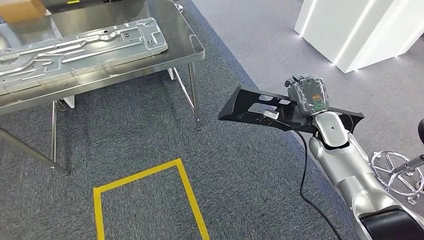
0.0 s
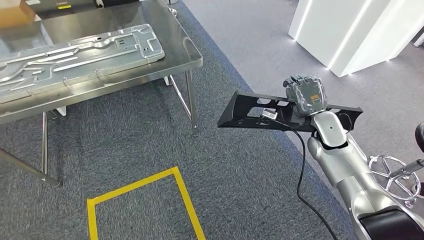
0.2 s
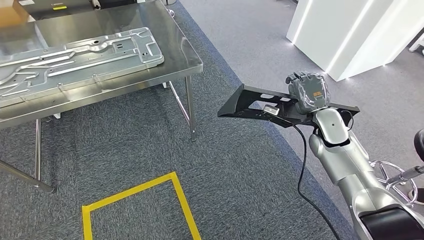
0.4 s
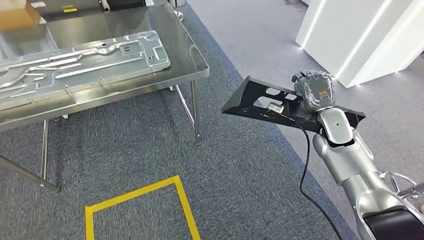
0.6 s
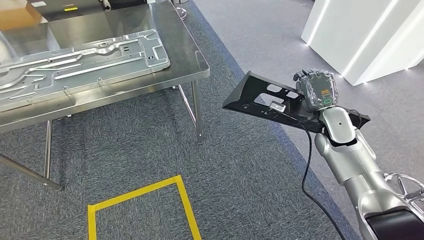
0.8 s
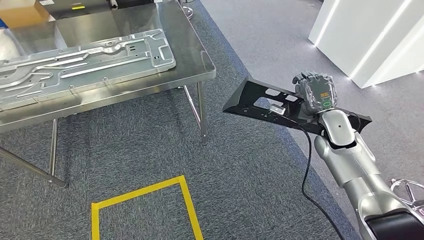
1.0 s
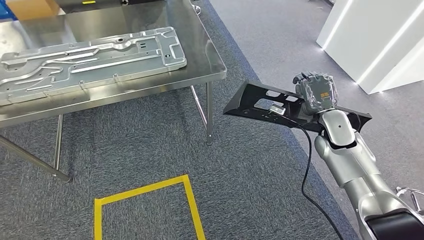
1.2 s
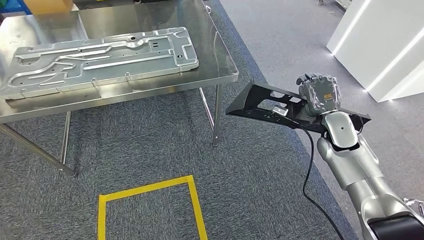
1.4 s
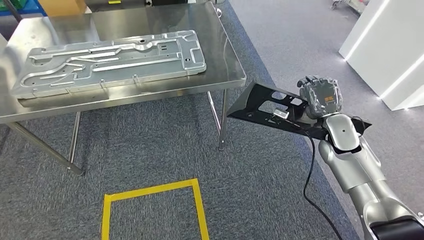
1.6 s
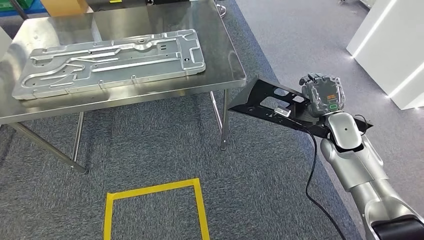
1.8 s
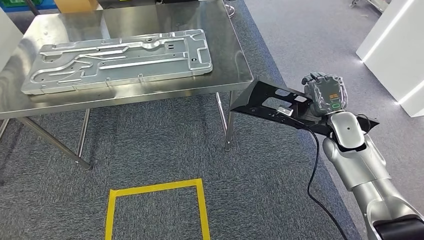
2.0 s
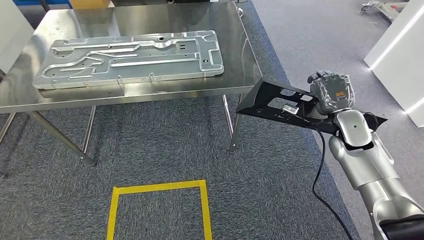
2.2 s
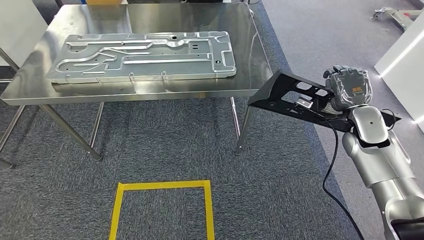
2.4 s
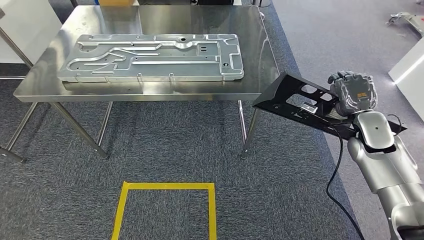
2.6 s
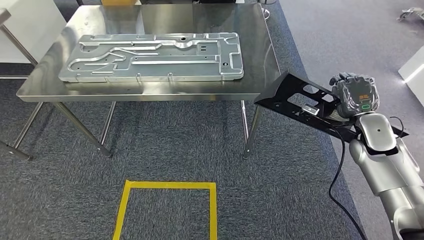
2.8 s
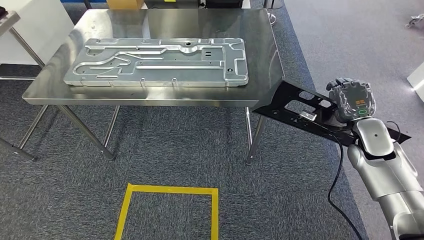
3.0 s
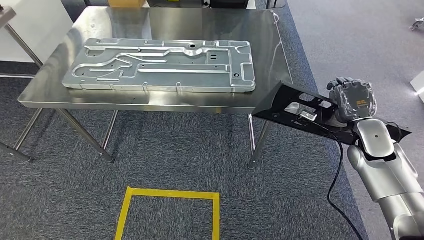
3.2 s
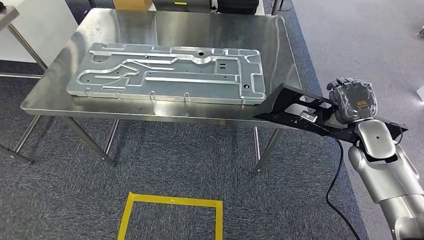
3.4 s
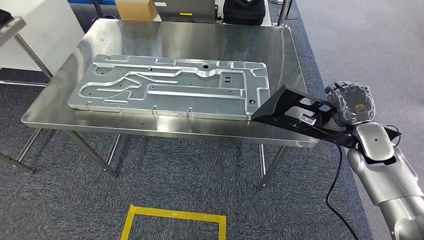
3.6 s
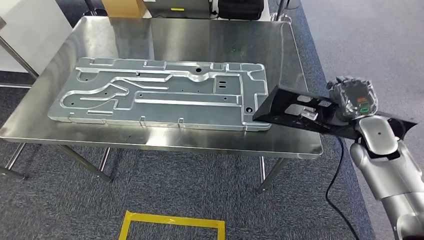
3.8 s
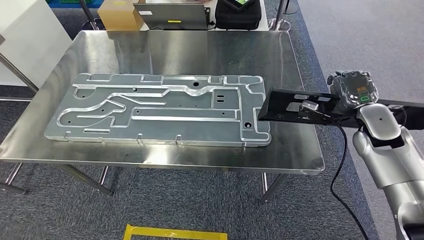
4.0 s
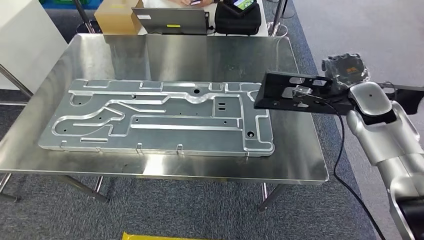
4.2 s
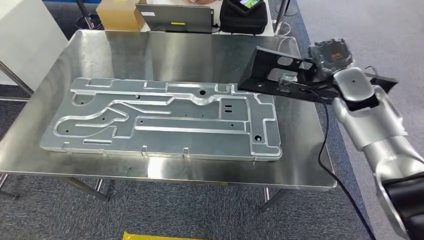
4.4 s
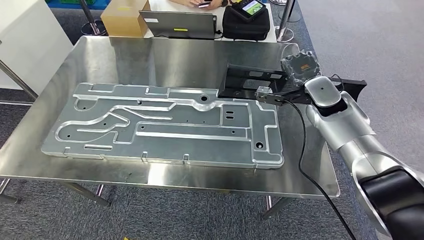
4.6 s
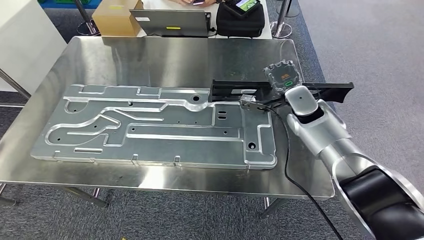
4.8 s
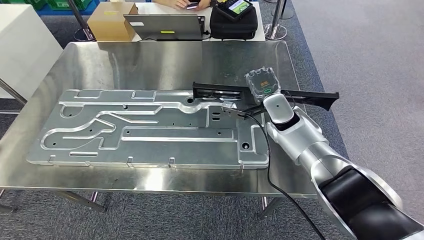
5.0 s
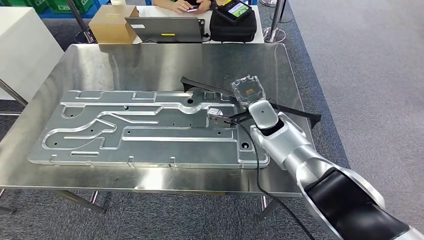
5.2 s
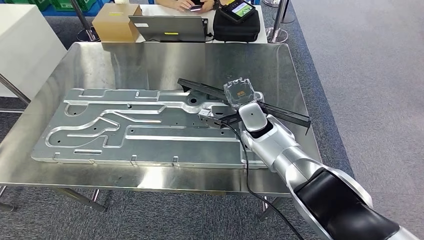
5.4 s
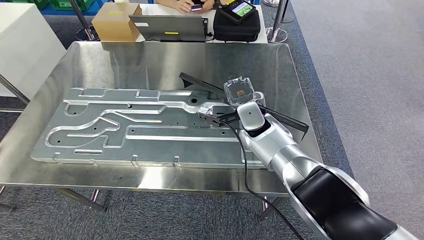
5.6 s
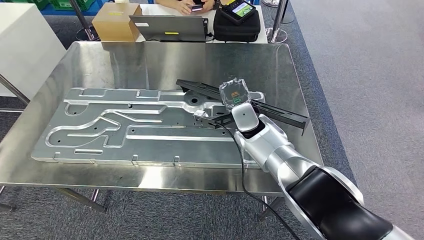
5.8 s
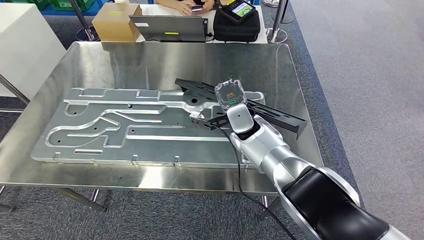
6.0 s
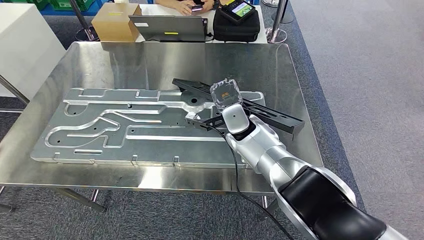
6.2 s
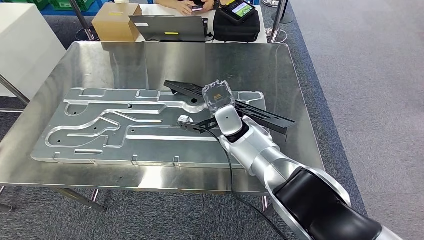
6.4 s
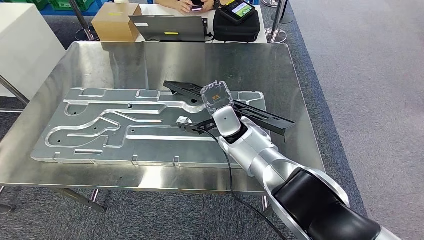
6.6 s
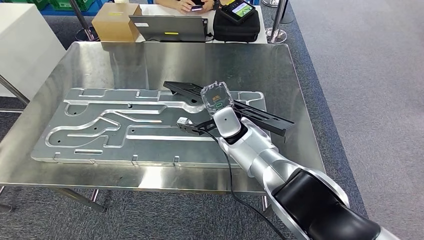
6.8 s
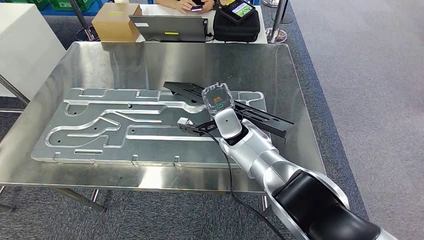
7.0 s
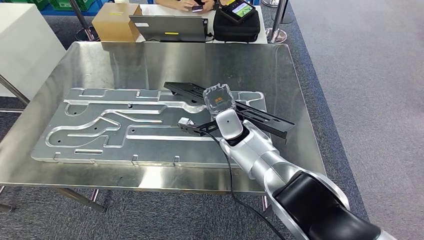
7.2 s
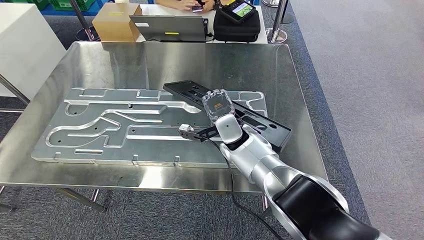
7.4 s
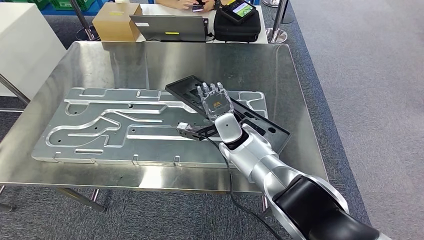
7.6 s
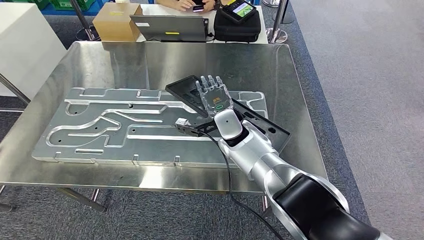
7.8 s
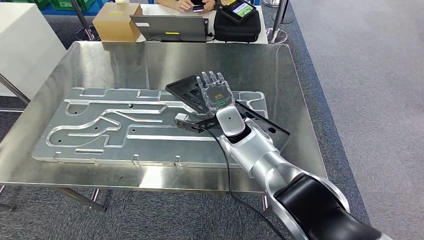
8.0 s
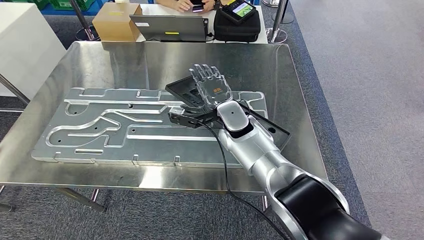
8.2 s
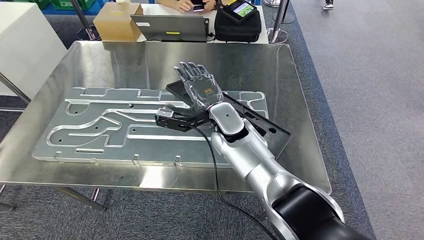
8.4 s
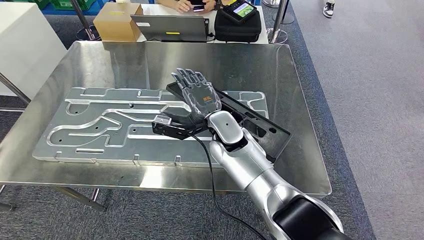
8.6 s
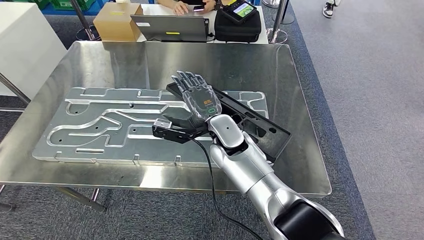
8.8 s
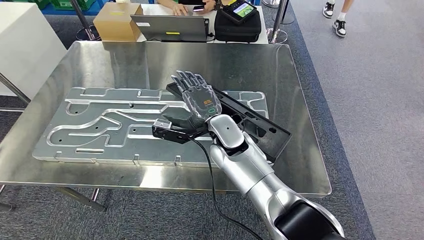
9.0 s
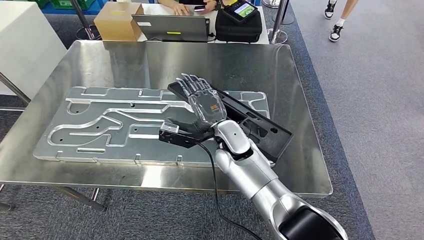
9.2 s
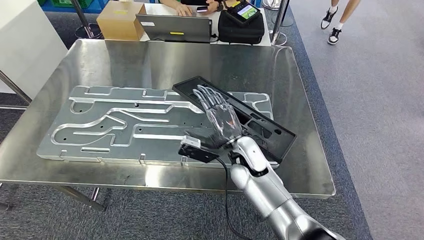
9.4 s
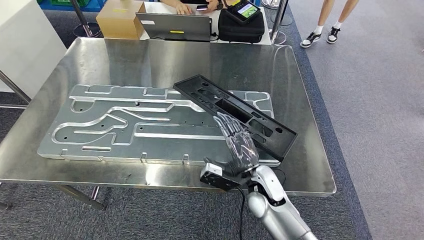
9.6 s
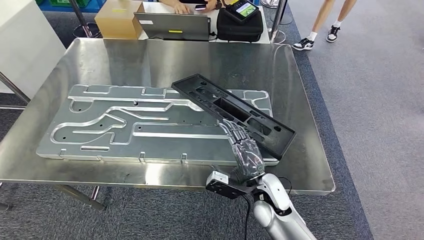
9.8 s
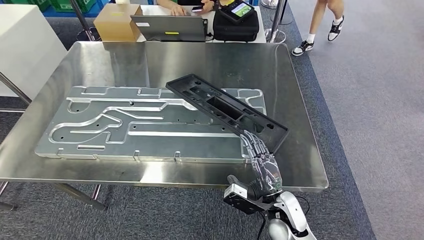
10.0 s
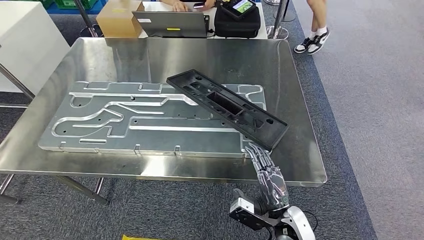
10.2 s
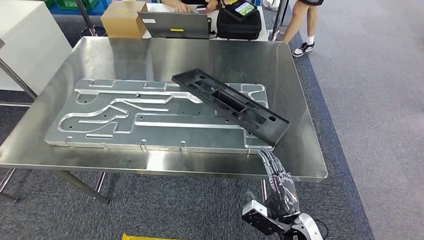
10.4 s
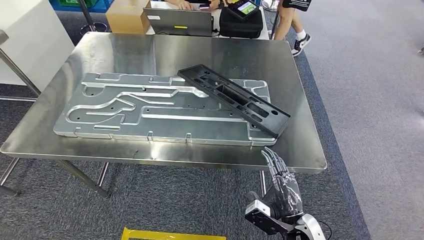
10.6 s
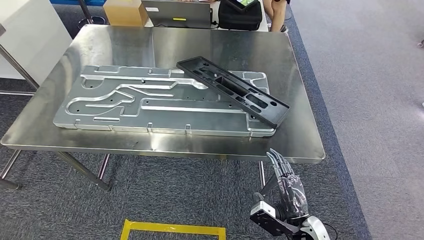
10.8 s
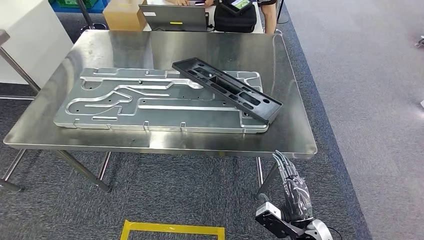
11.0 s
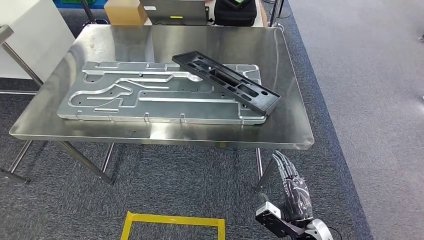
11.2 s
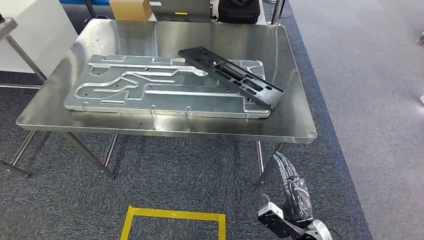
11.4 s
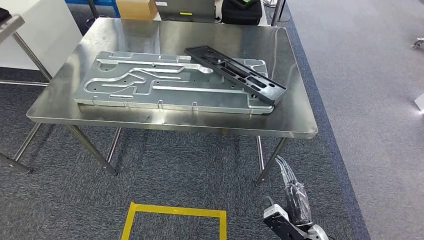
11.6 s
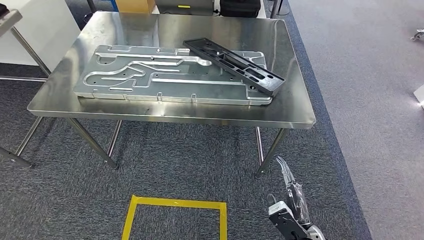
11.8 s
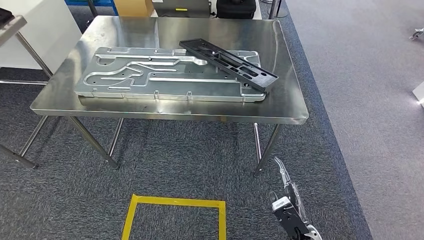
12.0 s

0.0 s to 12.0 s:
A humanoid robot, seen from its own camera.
Step, 0.0 to 2.0 s: Move the large material to the workbench.
Step, 3.2 to 10.8 s: Insert the large material into the corresponding slot on the workbench.
6.0 to 7.6 s: The hands make only small movements.
7.6 to 9.0 s: The right hand ends up roughly 5 cm from where it was.

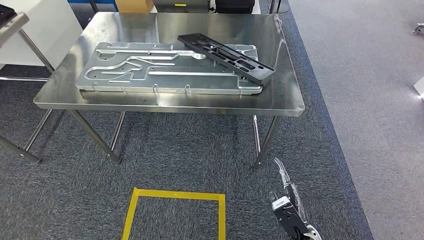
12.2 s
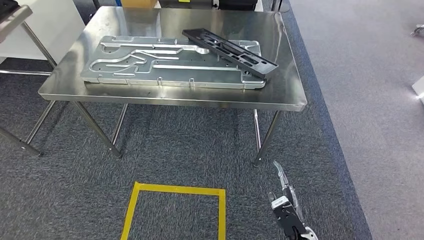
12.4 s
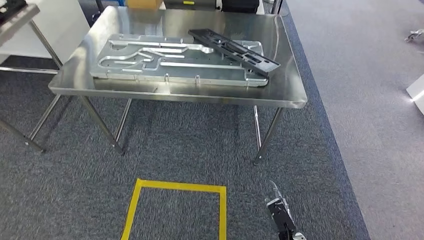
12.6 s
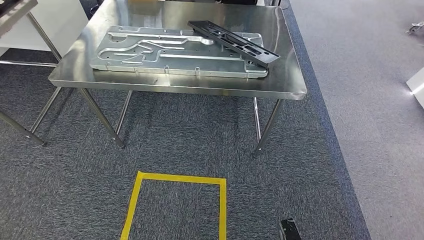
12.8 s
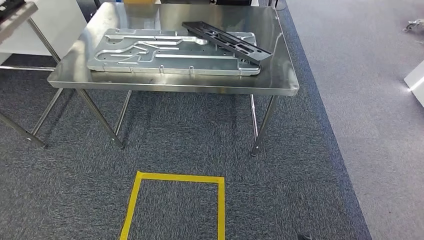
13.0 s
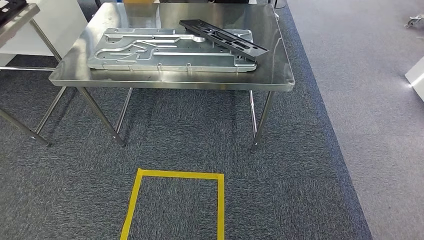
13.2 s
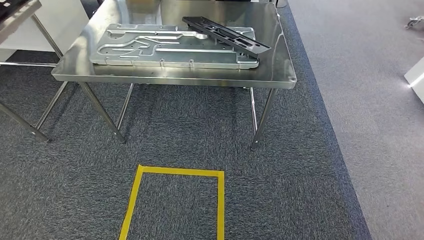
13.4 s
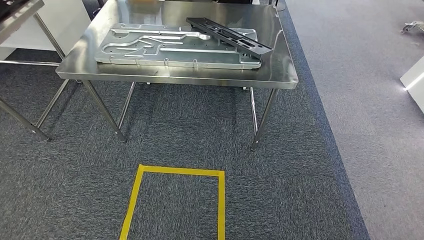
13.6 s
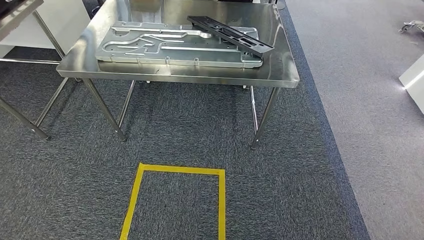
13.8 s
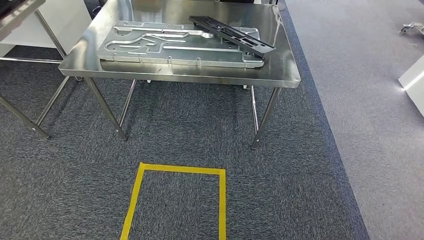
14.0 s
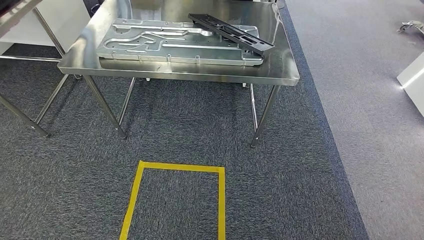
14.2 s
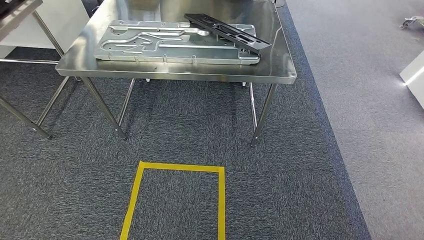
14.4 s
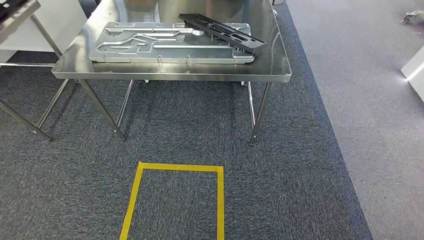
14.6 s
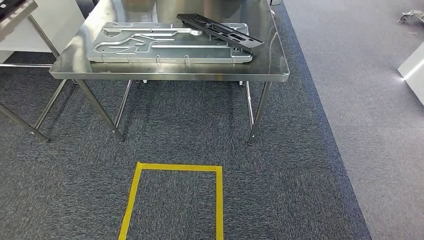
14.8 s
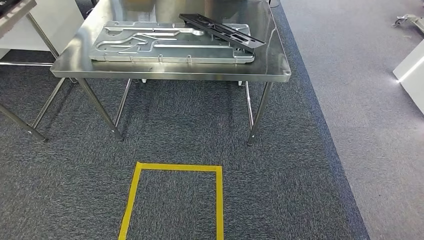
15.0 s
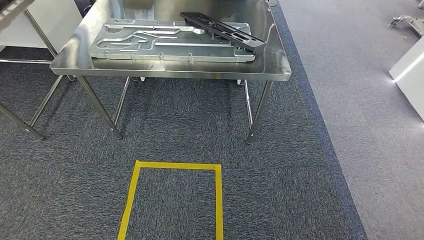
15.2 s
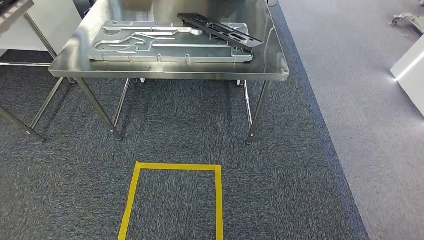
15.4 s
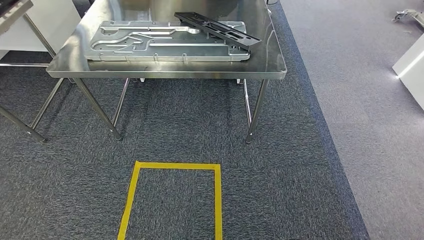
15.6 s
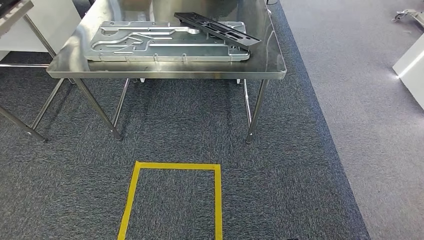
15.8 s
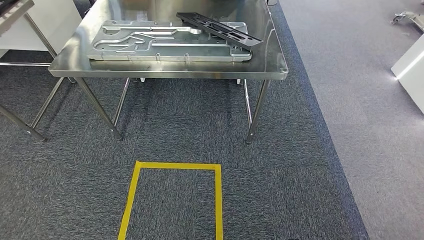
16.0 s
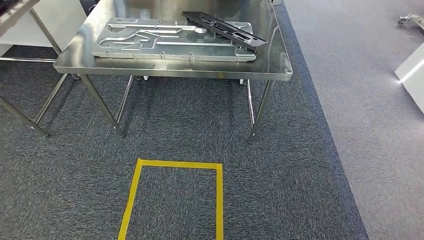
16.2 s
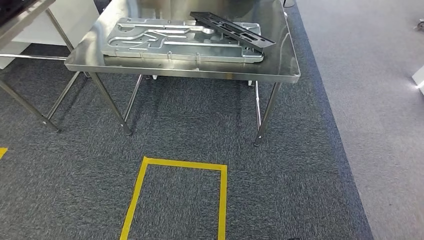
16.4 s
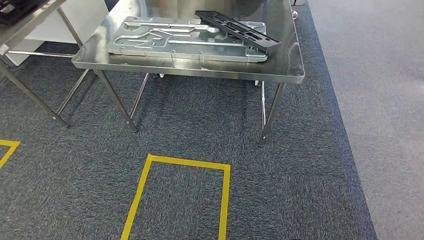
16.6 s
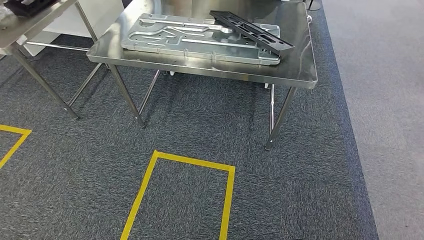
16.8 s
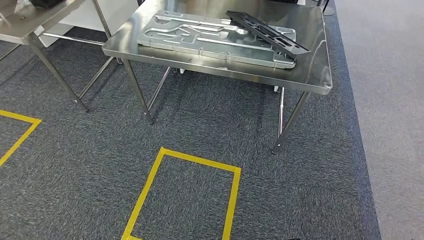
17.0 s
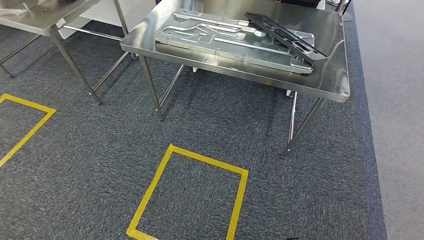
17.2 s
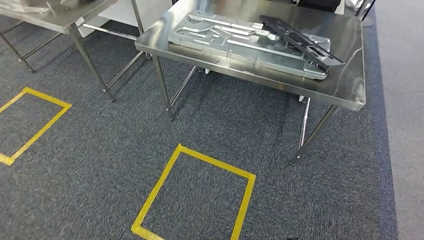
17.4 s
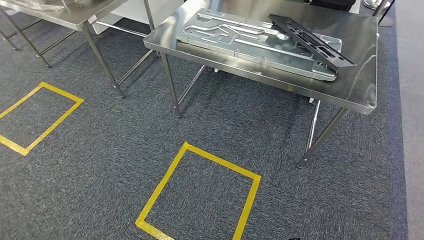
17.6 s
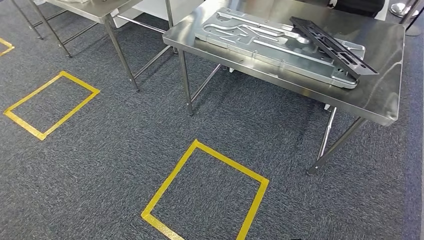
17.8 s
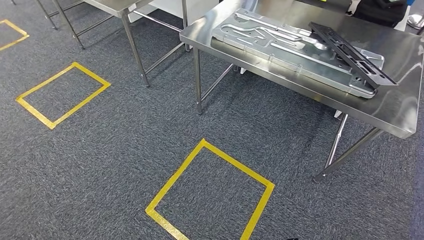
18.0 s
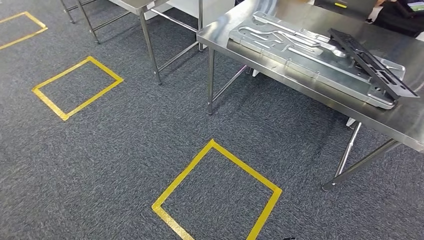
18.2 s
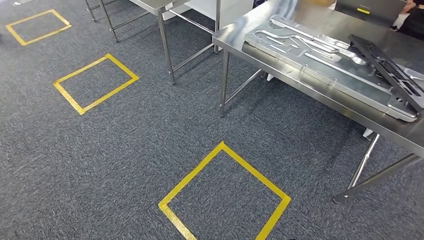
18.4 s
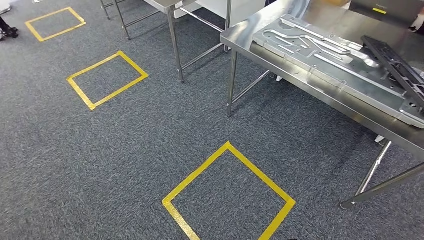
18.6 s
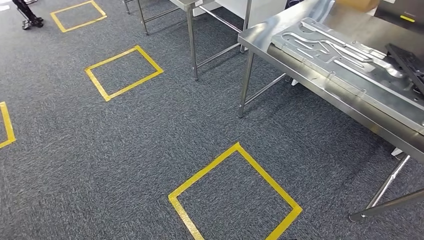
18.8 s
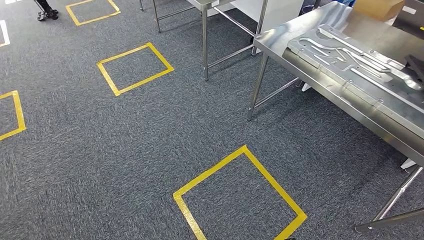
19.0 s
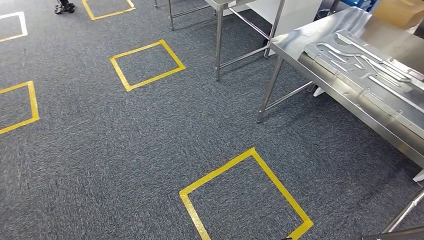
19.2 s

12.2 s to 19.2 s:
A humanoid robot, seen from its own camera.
13.6 to 15.0 s: The hands make only small movements.
